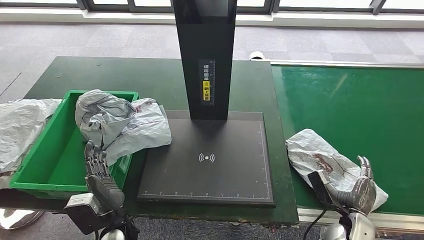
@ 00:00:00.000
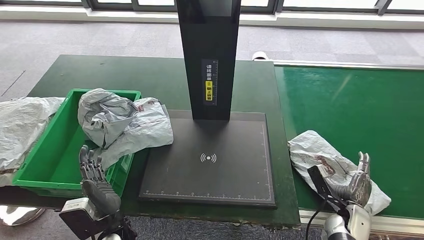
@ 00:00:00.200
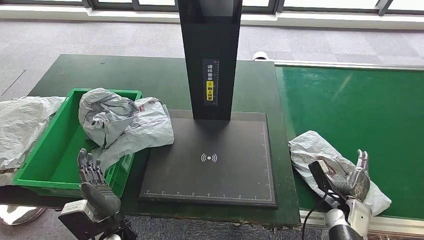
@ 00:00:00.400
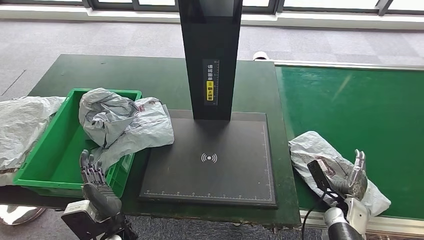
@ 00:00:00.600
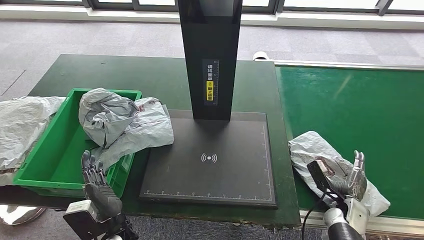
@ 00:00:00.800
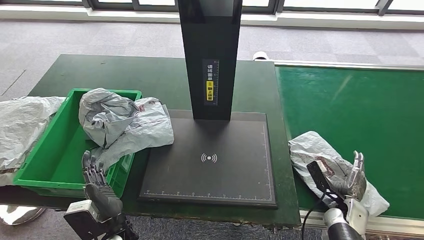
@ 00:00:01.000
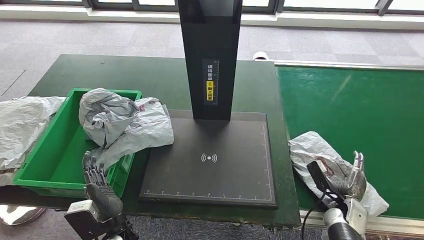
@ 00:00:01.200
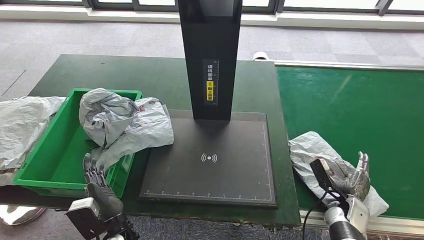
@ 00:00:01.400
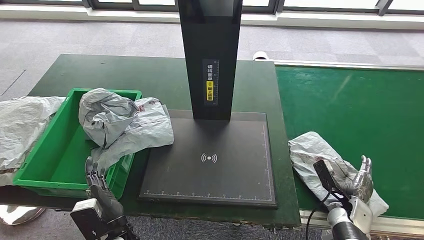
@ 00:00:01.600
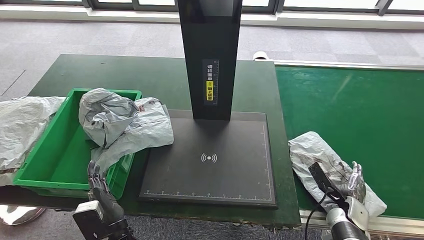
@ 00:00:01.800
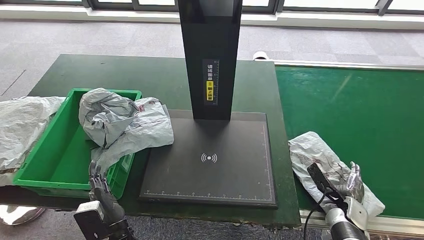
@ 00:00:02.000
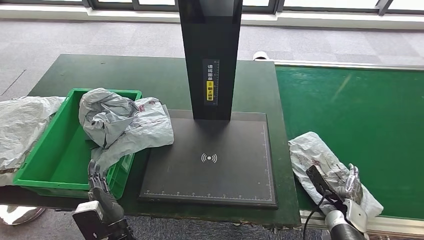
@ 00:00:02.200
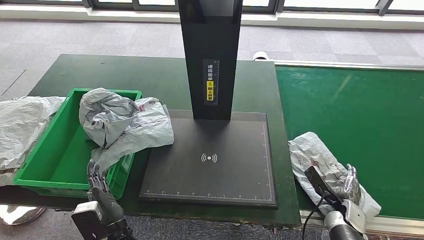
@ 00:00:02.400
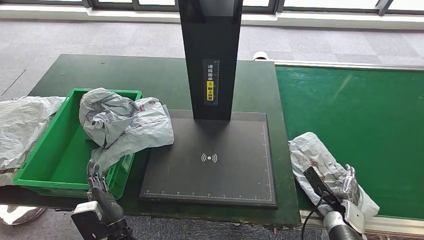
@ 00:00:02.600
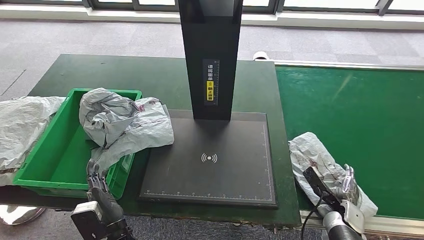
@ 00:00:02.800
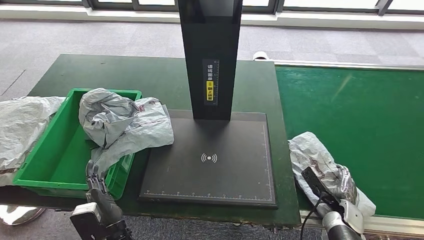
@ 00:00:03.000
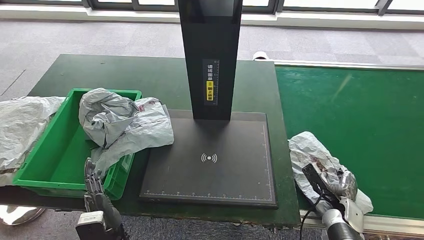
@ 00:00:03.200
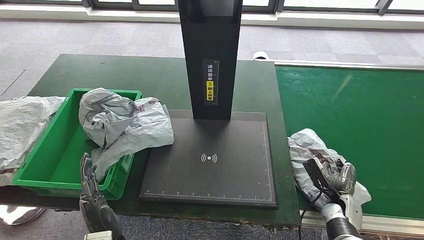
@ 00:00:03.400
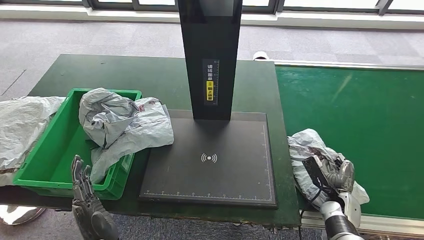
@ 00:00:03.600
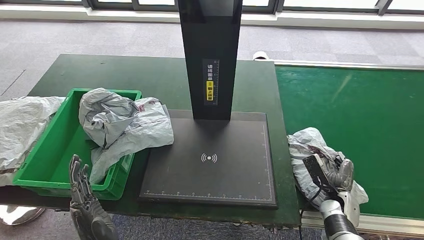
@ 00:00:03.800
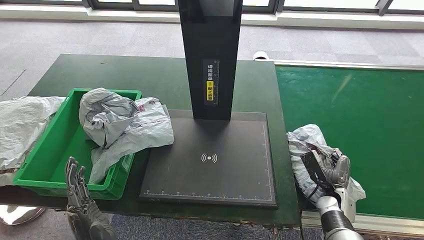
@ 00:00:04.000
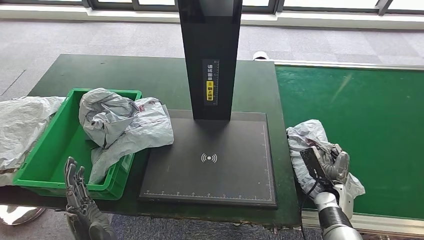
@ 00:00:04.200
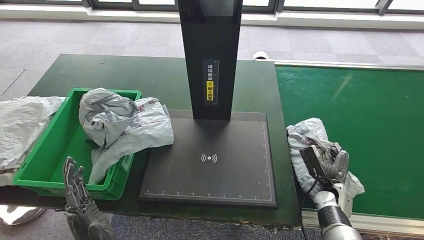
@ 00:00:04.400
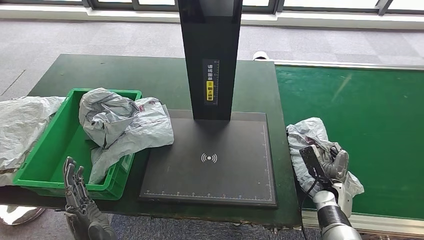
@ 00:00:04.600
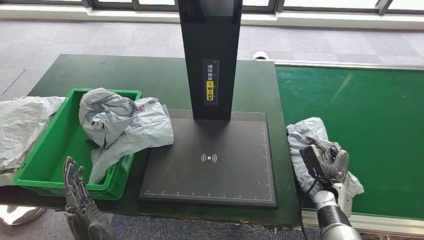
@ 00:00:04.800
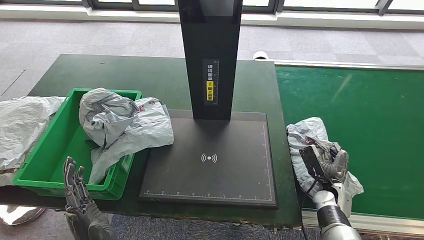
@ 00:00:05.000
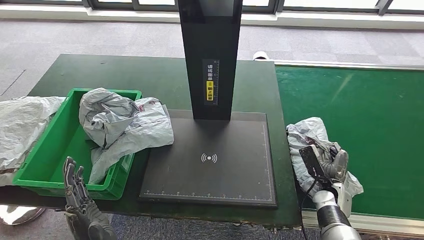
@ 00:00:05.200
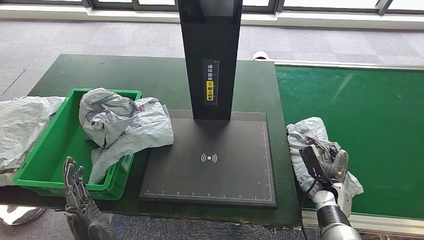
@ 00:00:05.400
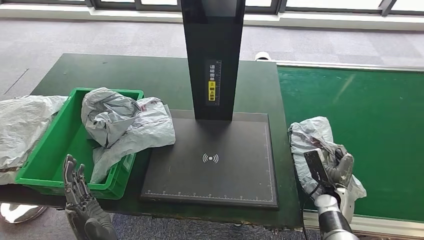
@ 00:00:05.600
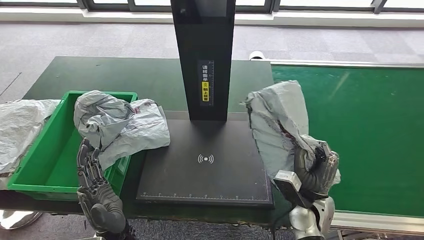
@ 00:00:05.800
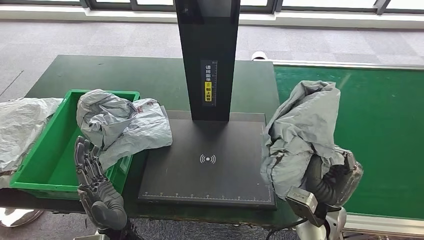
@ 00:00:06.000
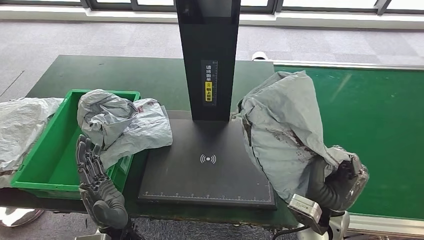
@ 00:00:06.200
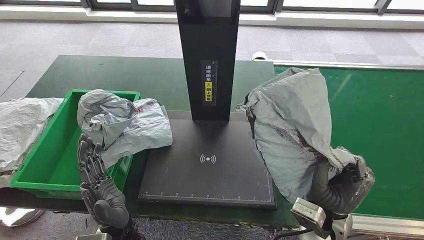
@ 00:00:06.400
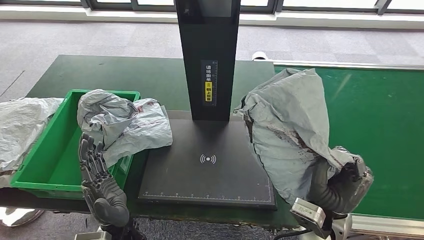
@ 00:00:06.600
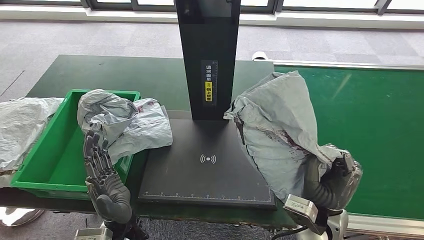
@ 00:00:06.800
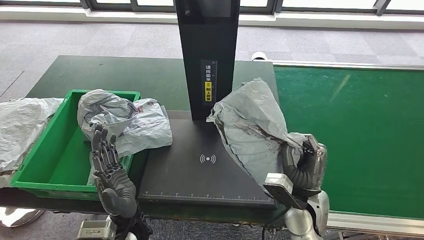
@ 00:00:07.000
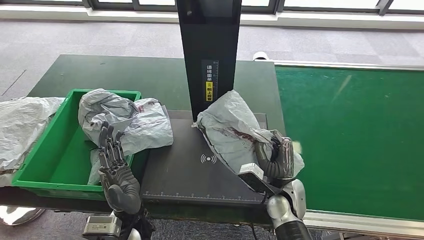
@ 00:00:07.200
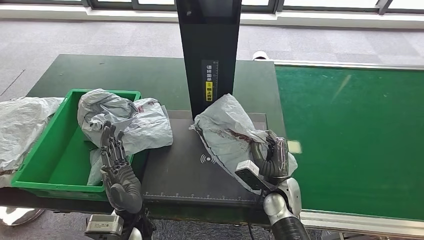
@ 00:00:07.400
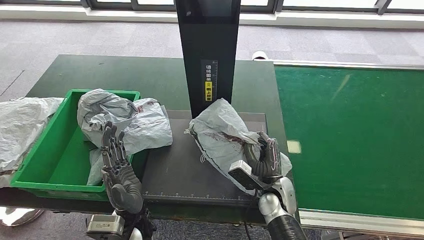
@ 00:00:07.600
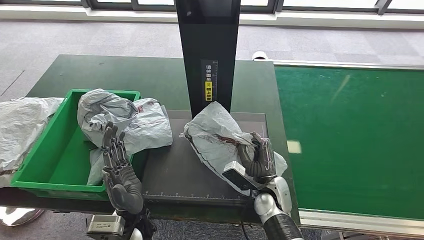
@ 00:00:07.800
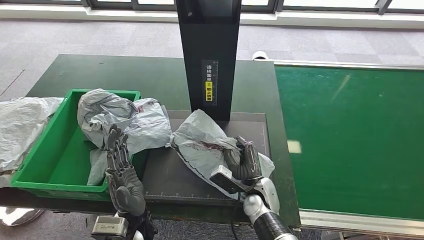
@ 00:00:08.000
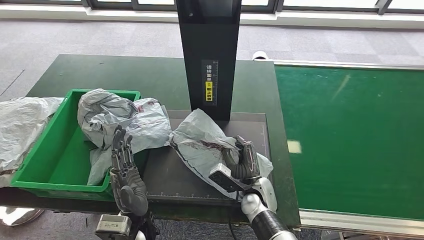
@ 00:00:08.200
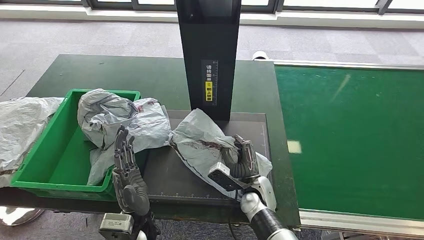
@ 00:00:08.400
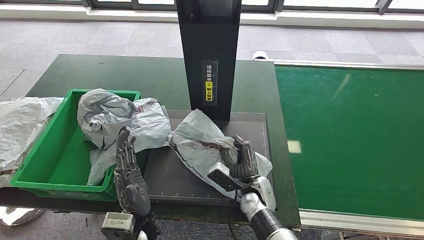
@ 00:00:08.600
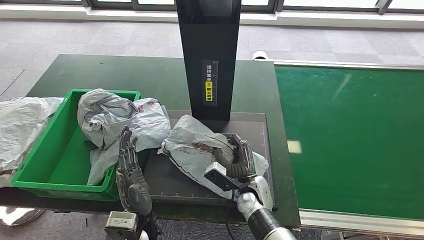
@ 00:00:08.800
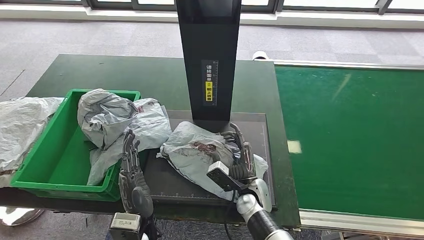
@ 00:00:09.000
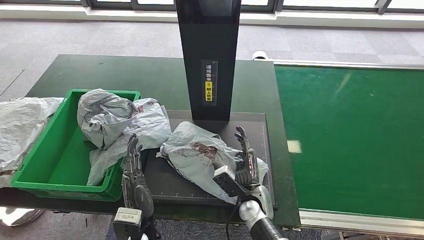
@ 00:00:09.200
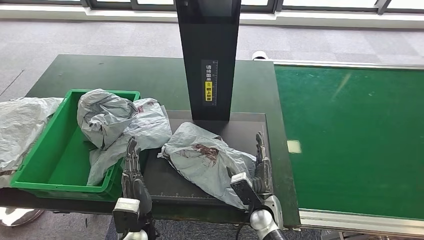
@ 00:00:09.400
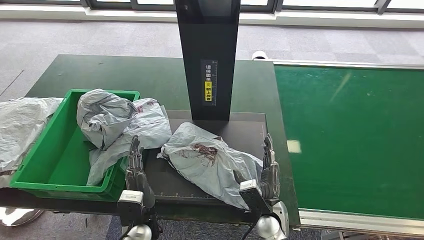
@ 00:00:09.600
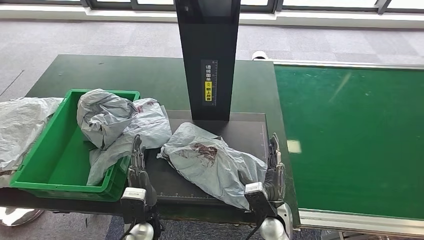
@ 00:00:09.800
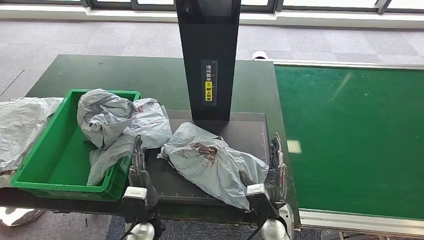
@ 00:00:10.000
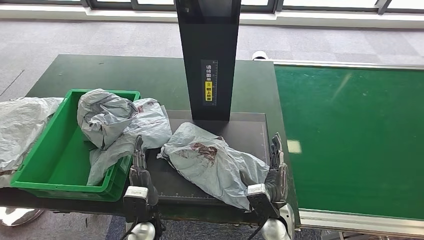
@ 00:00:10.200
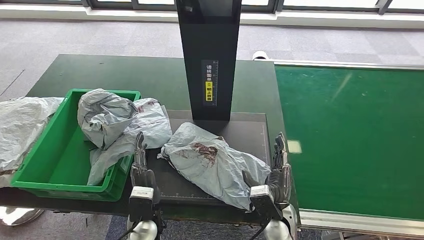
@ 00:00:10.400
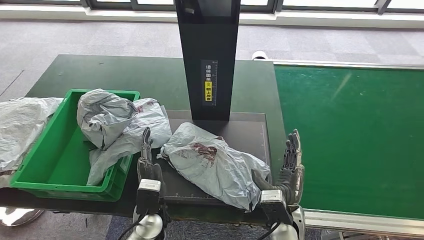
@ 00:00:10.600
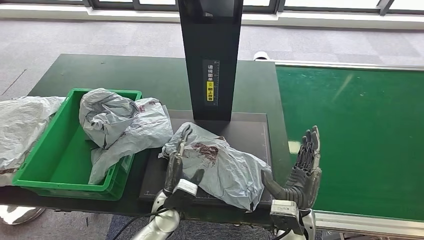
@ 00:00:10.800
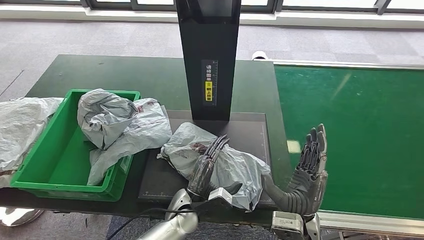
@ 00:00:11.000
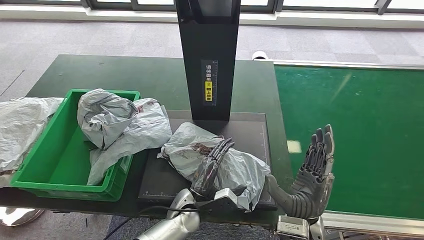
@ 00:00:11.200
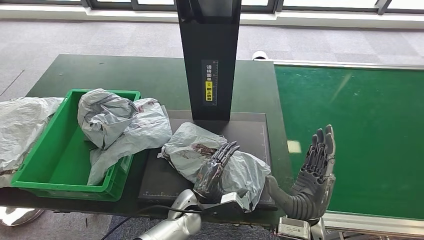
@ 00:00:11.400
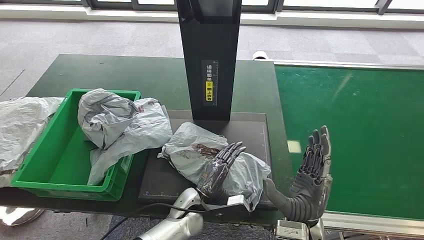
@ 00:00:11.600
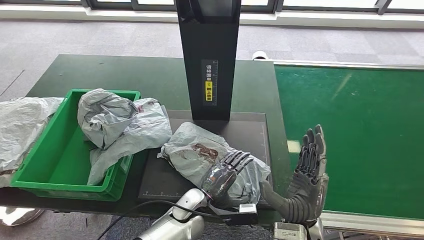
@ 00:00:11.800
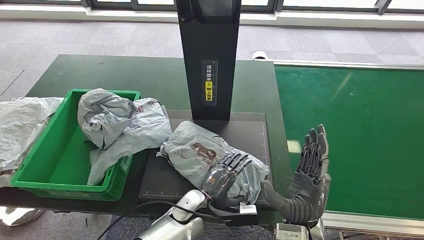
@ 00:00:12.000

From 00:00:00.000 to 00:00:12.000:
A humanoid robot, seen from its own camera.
Step, from 00:00:03.800 to 00:00:06.400: Pick up the parcel from the conveyor belt.
Step, from 00:00:06.600 to 00:00:09.600: Place the parcel onto the inbound machine.
From 00:00:00.000 to 00:00:01.600: The right hand moves about 5 cm.
From 00:00:01.600 to 00:00:03.000: The hands make only small movements.
From 00:00:03.000 to 00:00:04.400: The left hand shifts approximately 10 cm upward. Meanwhile the right hand ends up some 5 cm from where it was.
From 00:00:04.400 to 00:00:06.000: The right hand shifts approximately 15 cm upward, to the left and backward. The left hand changes place by approximately 5 cm.
From 00:00:06.000 to 00:00:07.600: The right hand heads to the left, forward and downward, covering some 10 cm.
From 00:00:07.600 to 00:00:09.000: The right hand is displaced to the left by about 5 cm.
From 00:00:09.000 to 00:00:10.400: The right hand goes approximately 10 cm to the right and backward.
From 00:00:10.400 to 00:00:12.000: The right hand moves upward, some 10 cm; the left hand is displaced to the right by approximately 10 cm.

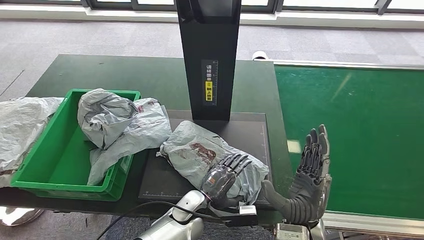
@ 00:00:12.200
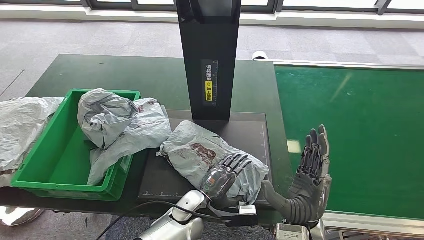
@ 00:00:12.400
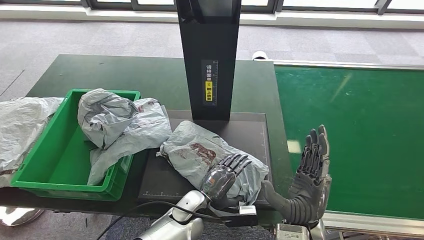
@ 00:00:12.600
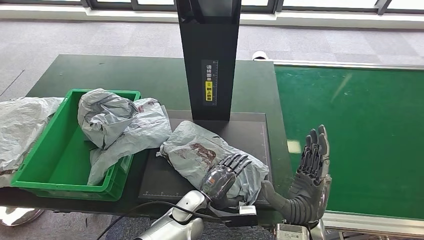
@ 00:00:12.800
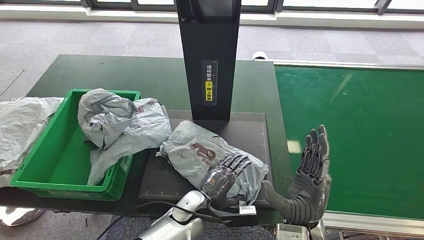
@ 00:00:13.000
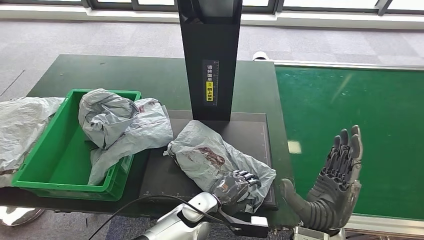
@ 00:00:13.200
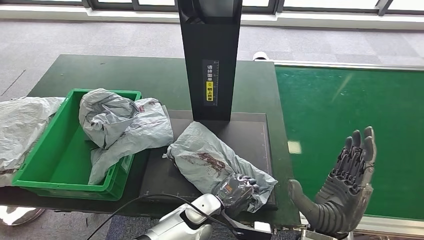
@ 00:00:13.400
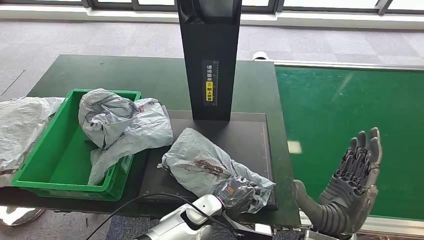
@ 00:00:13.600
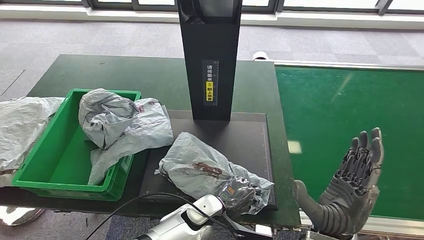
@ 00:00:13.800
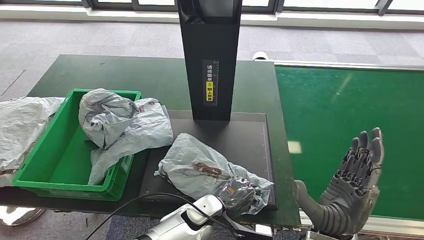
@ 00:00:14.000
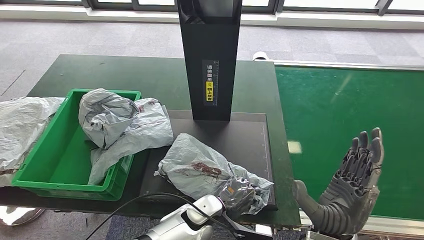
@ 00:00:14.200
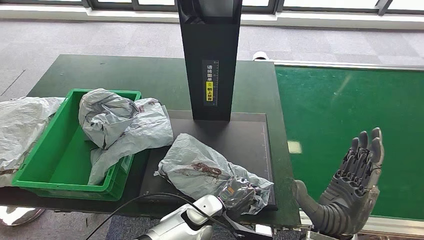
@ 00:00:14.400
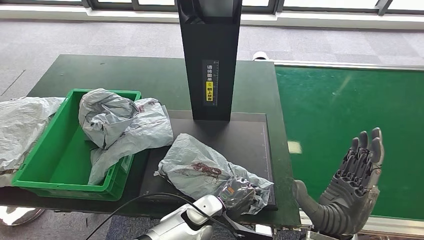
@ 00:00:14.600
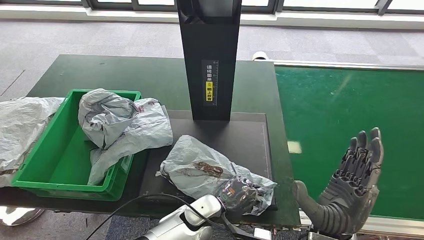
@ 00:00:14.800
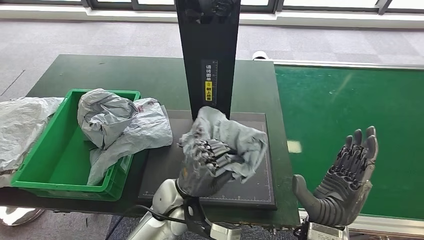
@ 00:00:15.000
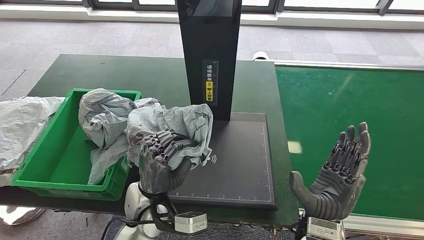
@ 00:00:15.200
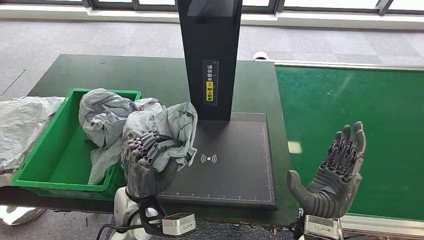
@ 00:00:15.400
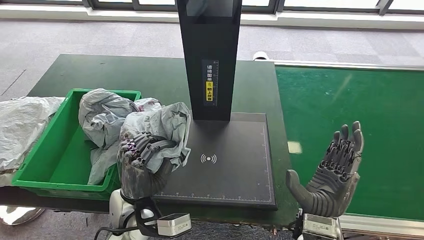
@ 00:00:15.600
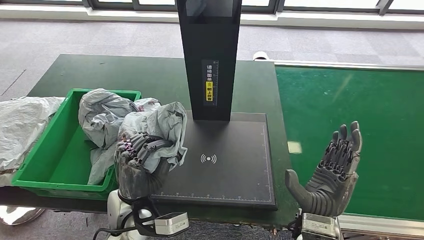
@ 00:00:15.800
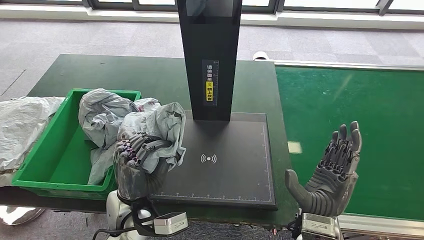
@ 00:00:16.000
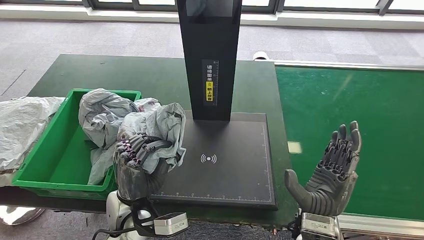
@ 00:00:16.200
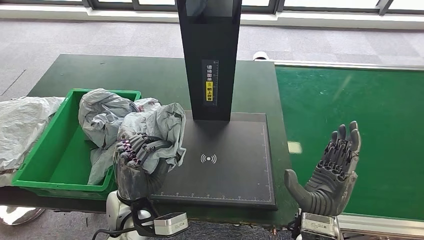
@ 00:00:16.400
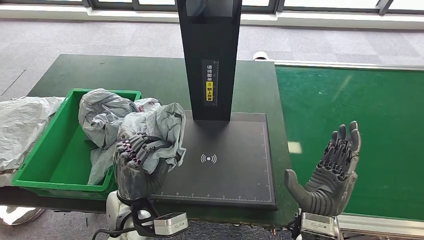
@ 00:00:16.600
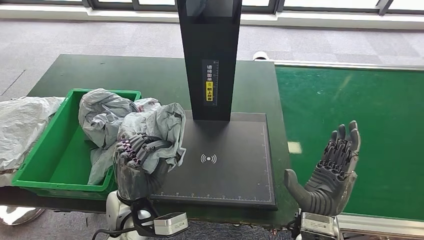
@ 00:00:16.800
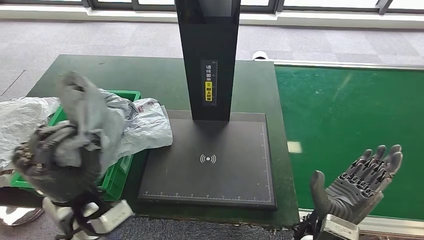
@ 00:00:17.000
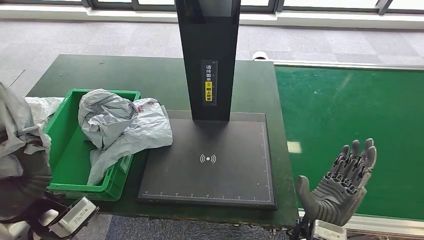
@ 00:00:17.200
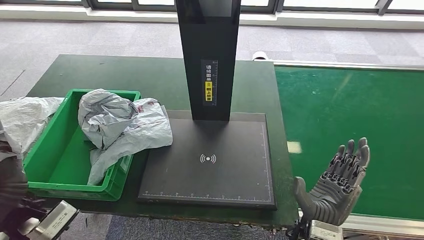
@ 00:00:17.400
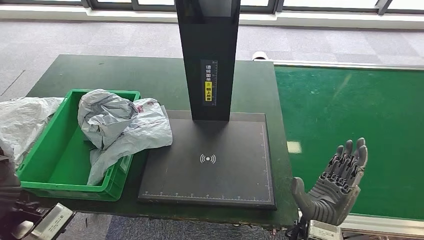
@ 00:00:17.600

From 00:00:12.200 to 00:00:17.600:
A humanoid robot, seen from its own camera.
Step, from 00:00:12.200 to 00:00:15.400: Pick up the parcel from the inbound machine.
Step, from 00:00:15.600 to 00:00:17.600: Place the parcel into the delivery box.
From 00:00:12.200 to 00:00:13.600: The hands stay close to where they were, moving slightly.
From 00:00:13.600 to 00:00:15.000: The left hand shifts roughly 10 cm upward.
From 00:00:15.000 to 00:00:16.200: The left hand travels to the left by some 10 cm.
From 00:00:16.200 to 00:00:17.600: The left hand is displaced to the left and upward by approximately 20 cm.
